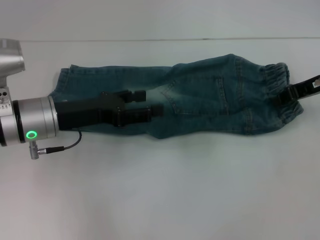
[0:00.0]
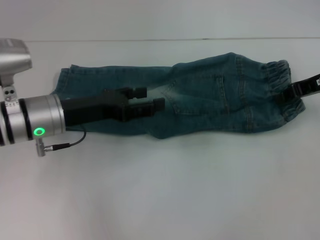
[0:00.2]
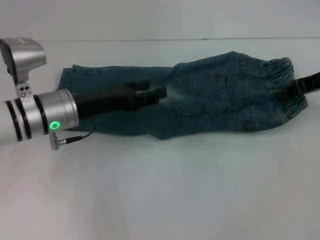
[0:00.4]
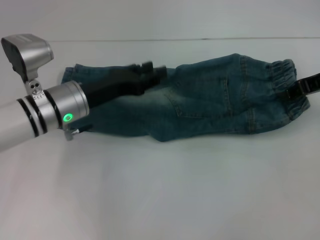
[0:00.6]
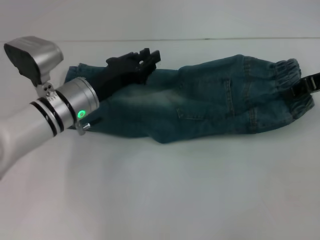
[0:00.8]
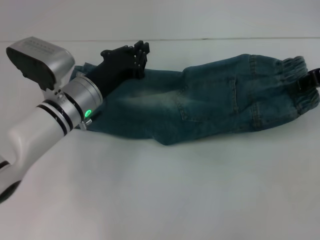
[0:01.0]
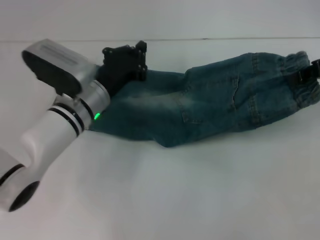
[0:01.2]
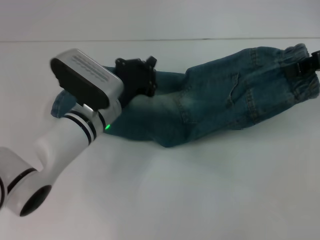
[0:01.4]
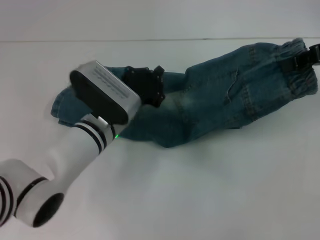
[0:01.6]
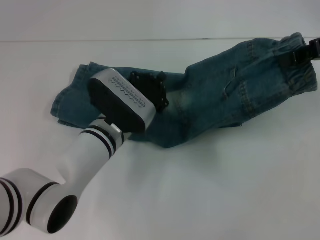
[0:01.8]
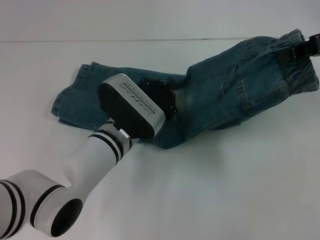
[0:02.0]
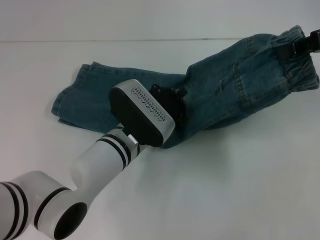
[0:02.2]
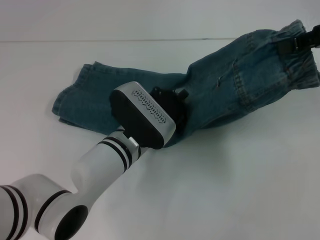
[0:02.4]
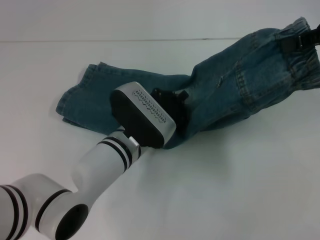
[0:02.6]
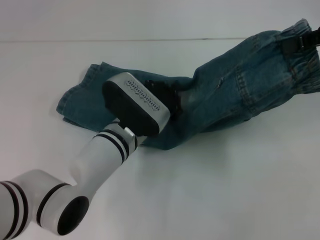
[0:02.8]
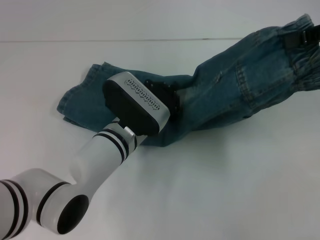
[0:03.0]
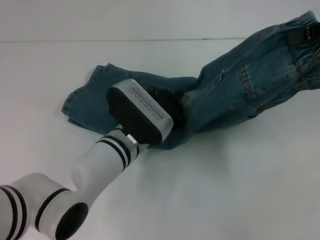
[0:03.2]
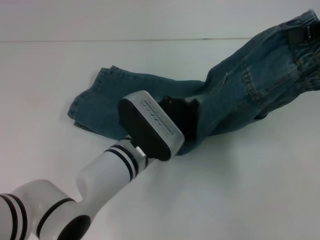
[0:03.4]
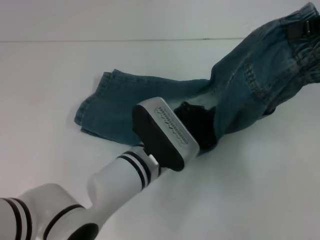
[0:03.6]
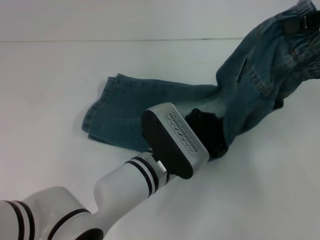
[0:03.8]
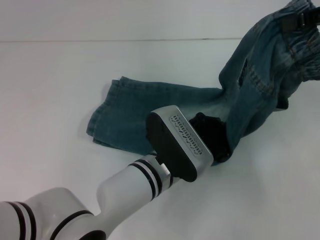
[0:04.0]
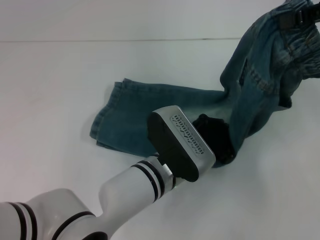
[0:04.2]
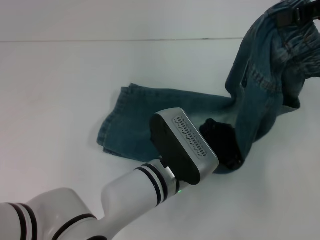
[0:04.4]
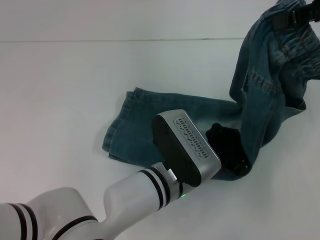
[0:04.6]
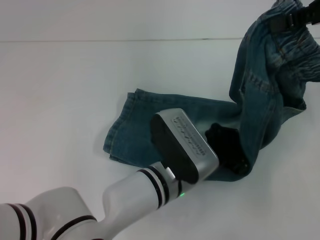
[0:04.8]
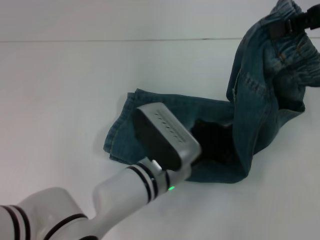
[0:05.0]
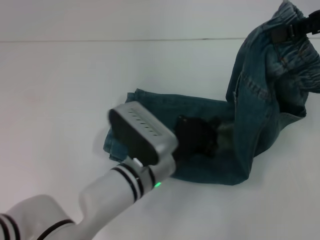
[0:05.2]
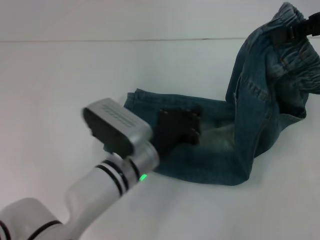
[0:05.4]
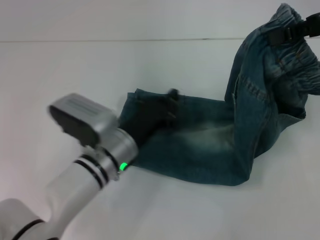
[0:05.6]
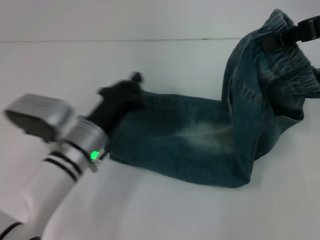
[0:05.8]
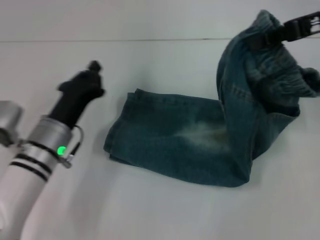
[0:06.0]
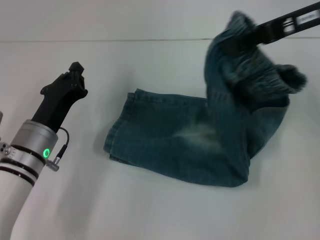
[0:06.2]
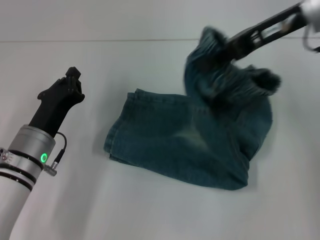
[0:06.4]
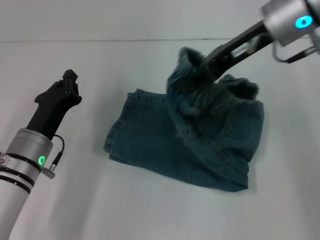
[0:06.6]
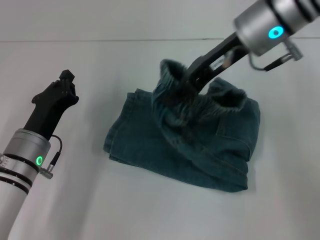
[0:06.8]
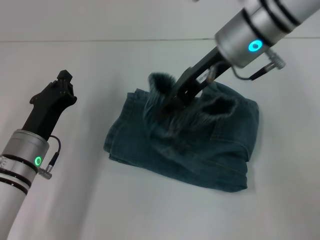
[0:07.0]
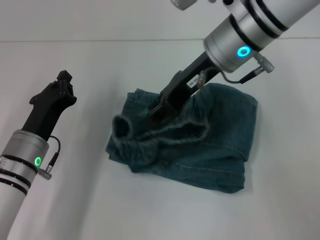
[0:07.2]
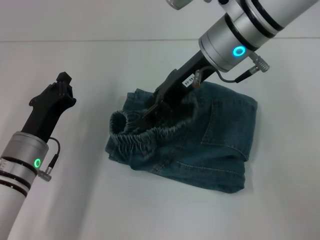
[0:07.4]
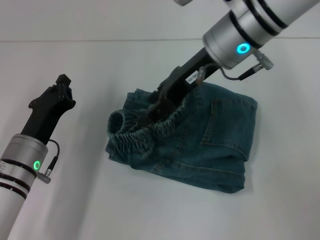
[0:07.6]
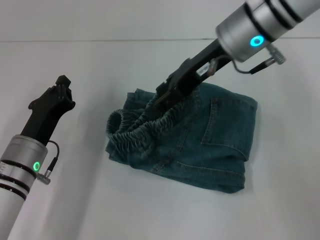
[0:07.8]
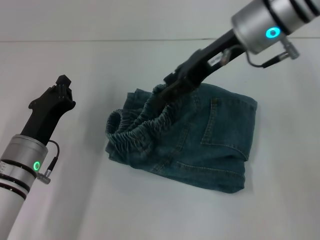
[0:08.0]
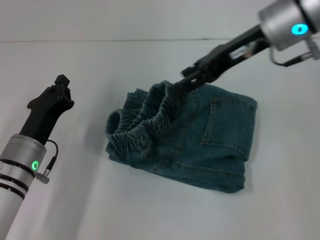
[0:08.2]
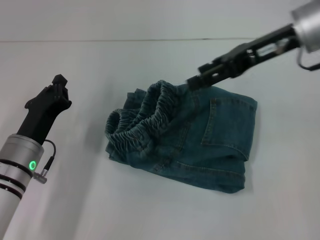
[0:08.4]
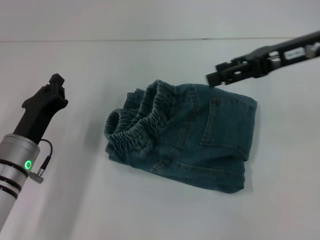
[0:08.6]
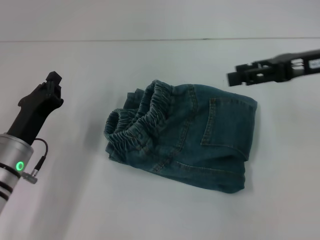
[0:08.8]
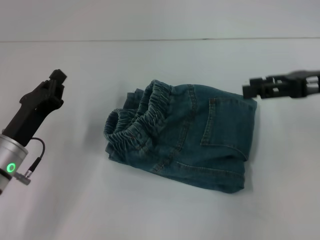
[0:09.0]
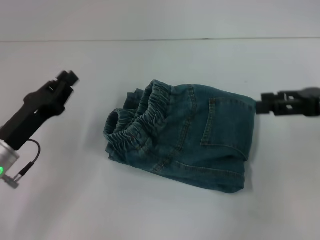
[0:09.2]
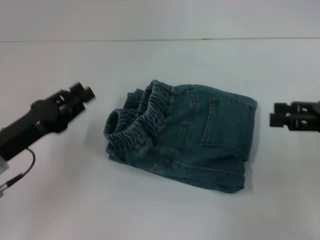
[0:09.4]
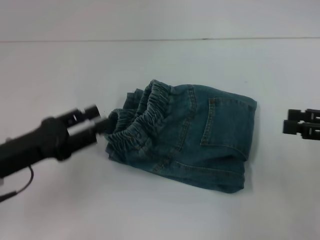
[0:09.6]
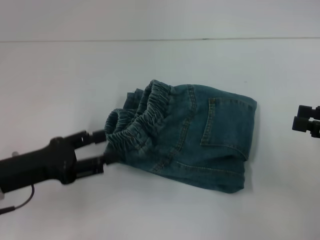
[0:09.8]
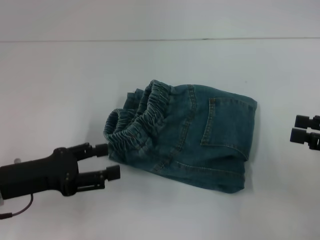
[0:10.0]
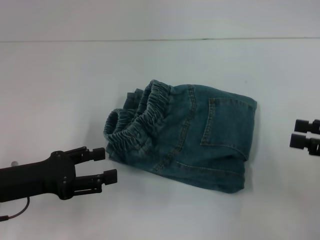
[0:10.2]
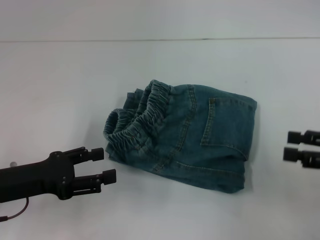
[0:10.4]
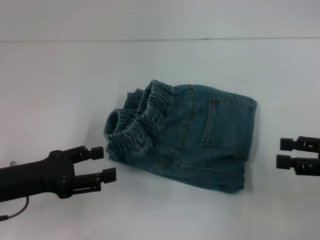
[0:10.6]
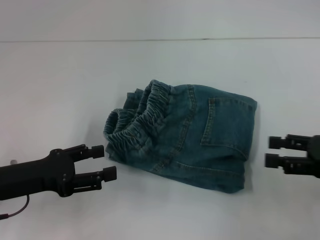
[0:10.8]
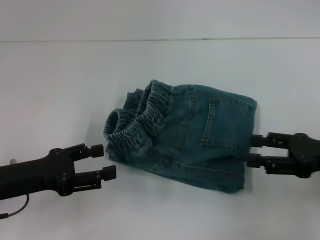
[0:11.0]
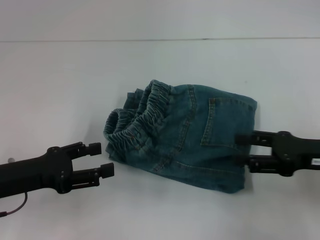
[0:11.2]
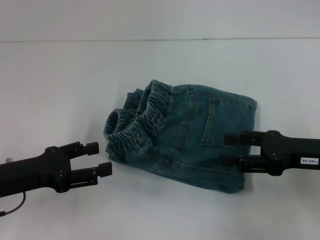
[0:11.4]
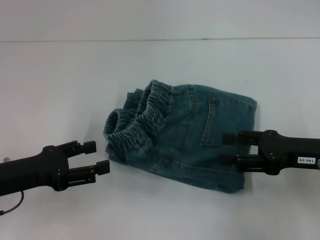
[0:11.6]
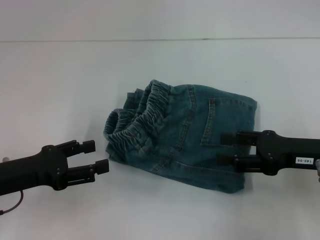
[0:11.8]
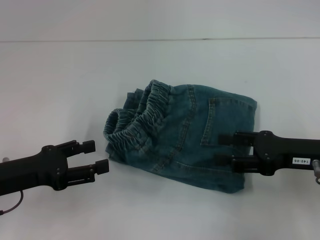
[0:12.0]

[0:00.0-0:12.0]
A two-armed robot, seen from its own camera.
Step, 0:00.0 to 0:04.8: Press the middle of the pants with your left hand.
Step, 0:05.0 to 0:08.4: Fold to the left with your right hand.
0:00.0 to 0:01.6: The right gripper travels upward by about 10 cm, while the left gripper heads to the right and downward, covering roughly 10 cm, and closes up.
0:01.6 to 0:03.0: The grippers make only small movements.
0:03.0 to 0:04.4: The left gripper travels backward and to the right by some 10 cm.
0:04.4 to 0:06.0: The left gripper shifts some 15 cm to the left.
0:06.0 to 0:07.6: The right gripper travels to the left by about 20 cm, and opens its fingers.
0:07.6 to 0:09.0: The right gripper travels to the right by some 20 cm.
0:09.0 to 0:10.4: The left gripper moves some 5 cm, and opens up. Meanwhile the right gripper moves backward, downward and to the right, approximately 10 cm.
0:10.4 to 0:12.0: The right gripper shifts roughly 10 cm to the left.

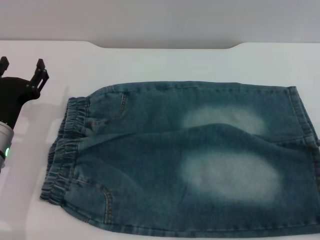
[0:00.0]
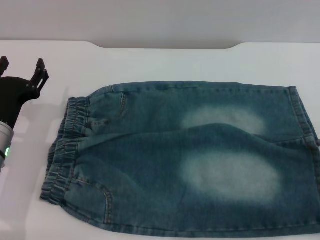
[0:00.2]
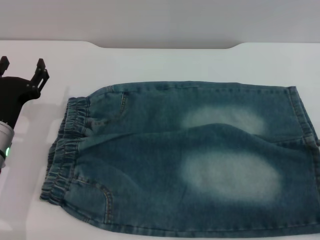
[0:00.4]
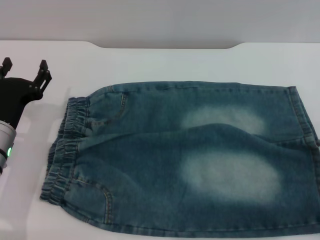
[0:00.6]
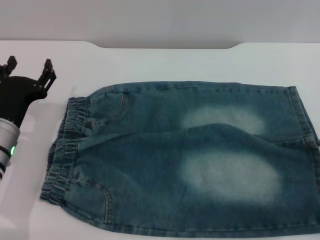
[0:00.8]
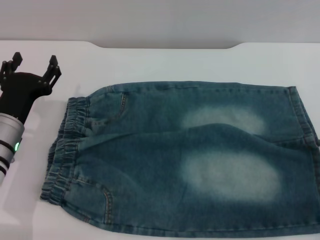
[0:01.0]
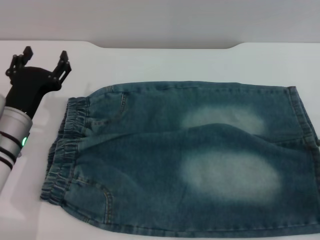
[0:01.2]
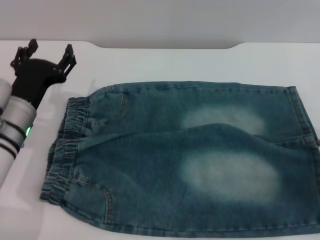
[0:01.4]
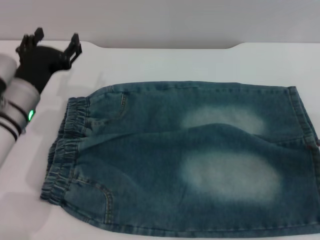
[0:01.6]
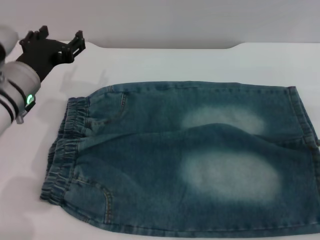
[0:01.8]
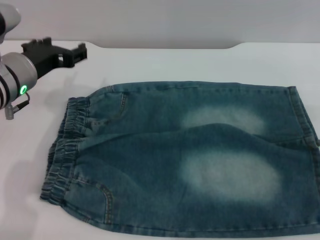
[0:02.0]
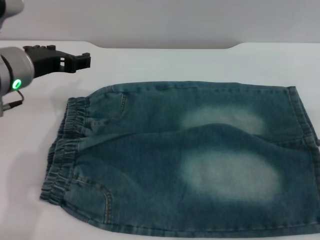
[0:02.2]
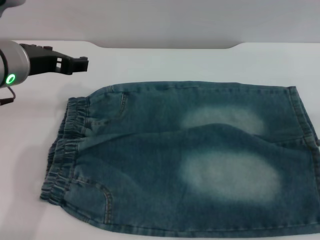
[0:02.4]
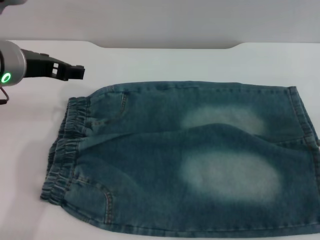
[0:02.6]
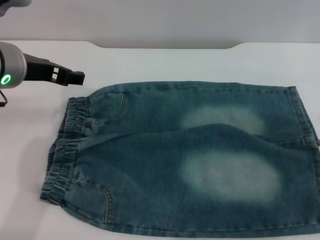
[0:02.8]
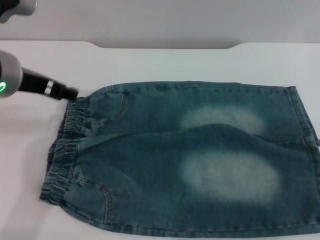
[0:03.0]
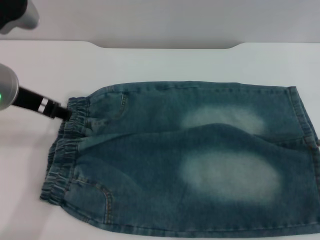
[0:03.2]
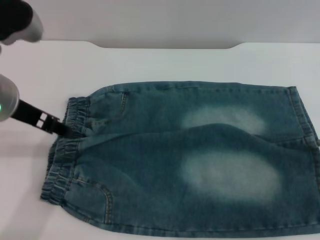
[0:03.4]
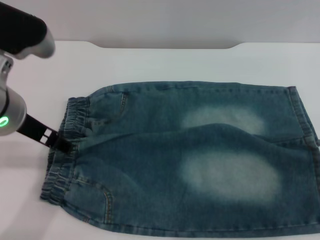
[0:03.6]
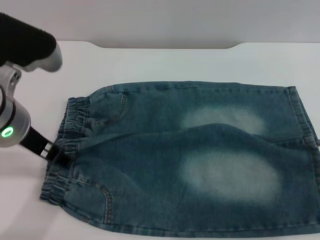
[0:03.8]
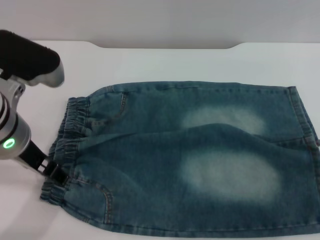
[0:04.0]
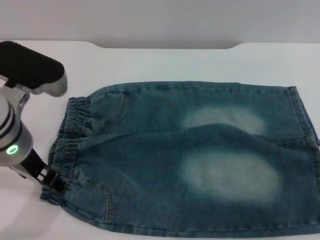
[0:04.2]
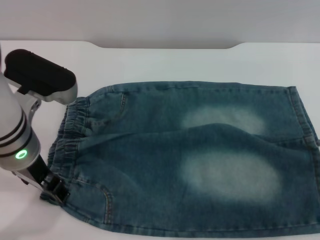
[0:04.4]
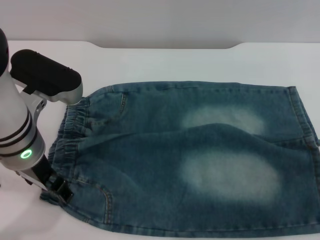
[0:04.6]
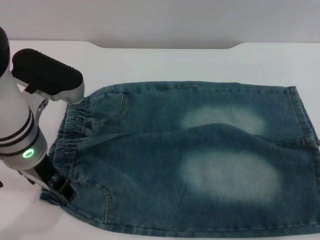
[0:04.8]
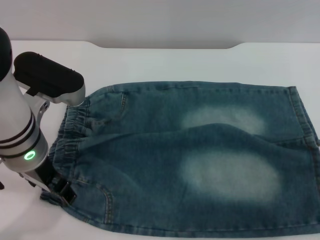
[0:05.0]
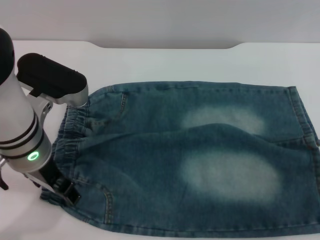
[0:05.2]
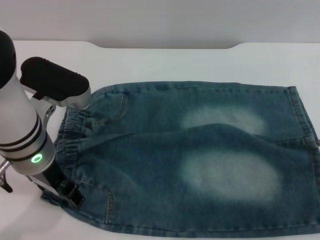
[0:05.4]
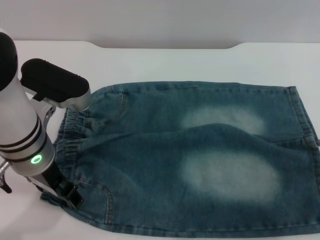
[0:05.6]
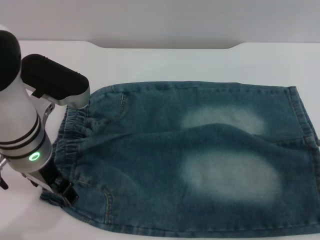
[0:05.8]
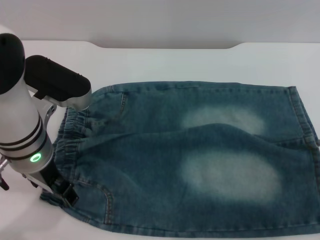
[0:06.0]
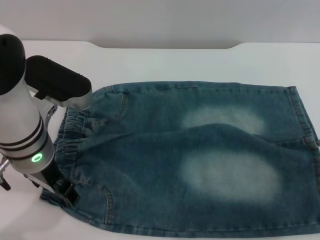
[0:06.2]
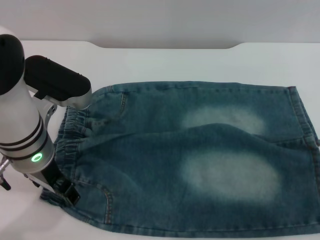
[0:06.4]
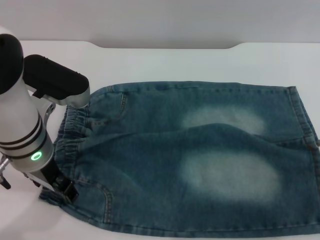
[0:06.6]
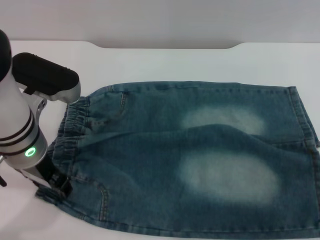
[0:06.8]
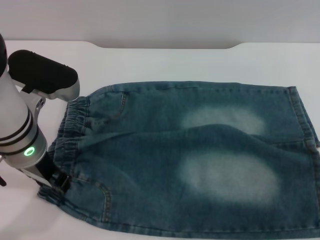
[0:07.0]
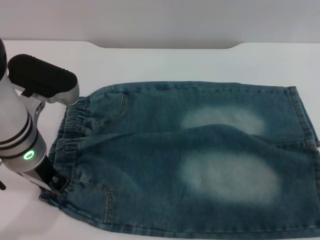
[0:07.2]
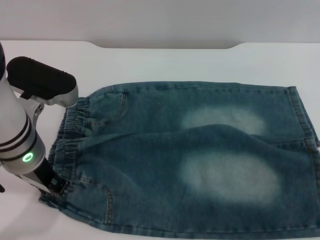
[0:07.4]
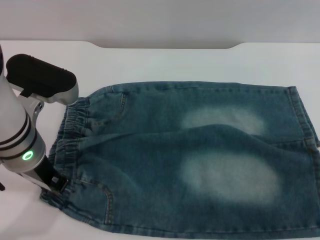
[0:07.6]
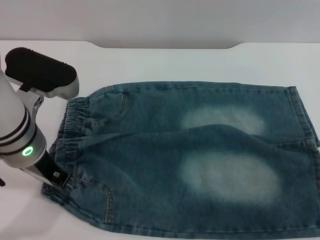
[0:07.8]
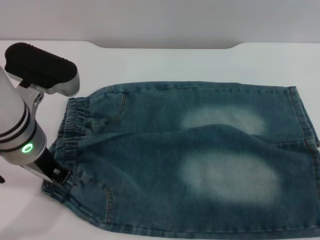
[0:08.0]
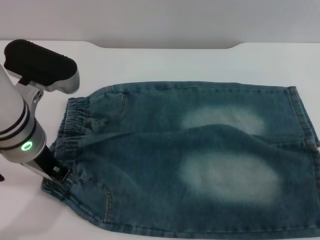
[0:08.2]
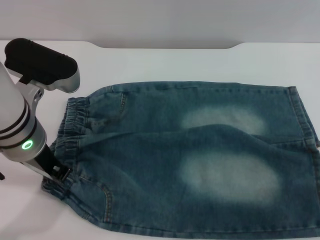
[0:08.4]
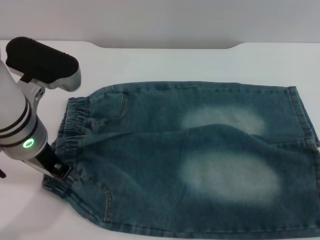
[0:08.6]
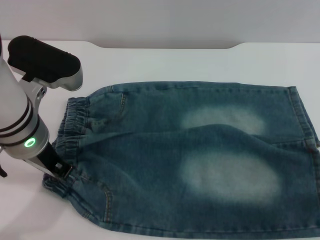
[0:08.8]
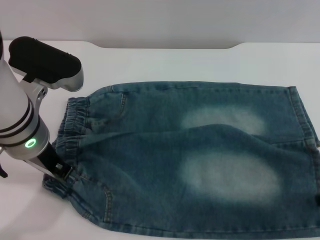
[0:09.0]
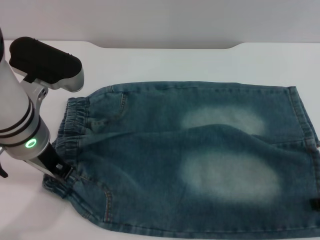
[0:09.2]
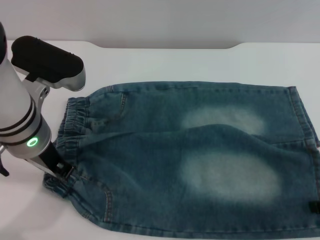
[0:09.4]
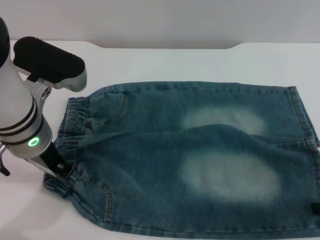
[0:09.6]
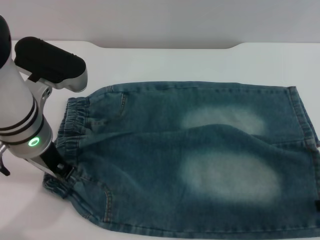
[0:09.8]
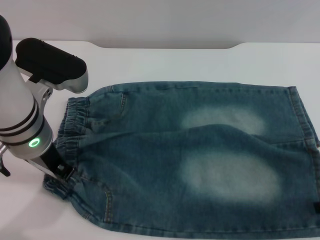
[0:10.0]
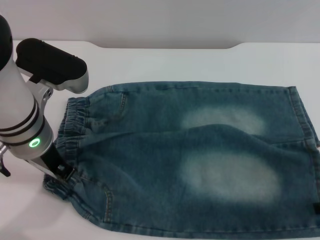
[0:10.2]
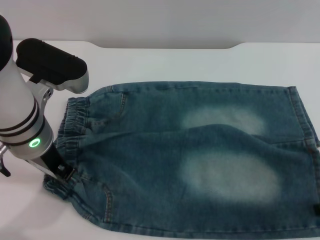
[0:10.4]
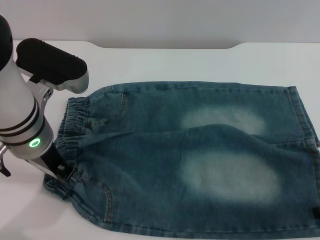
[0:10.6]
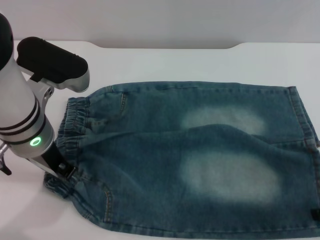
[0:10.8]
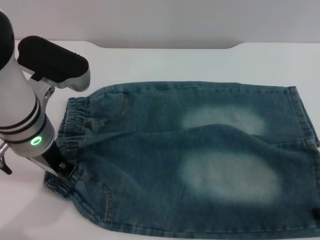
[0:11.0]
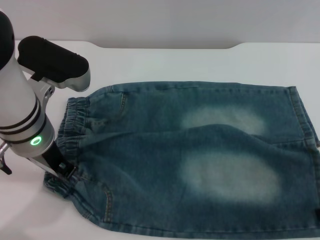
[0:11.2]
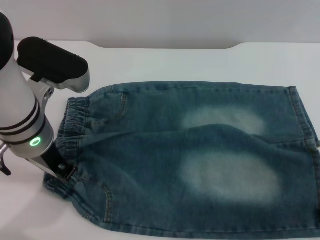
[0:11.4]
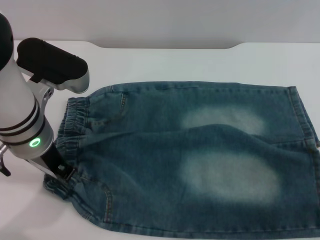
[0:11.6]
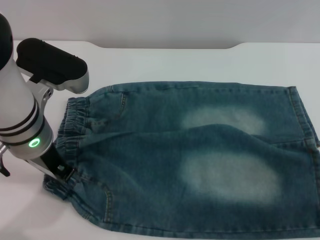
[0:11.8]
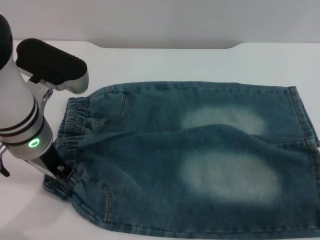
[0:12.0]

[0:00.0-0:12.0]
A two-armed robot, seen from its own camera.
0:00.0 to 0:01.6: The left gripper ends up about 5 cm from where it was.
0:01.6 to 0:03.0: The left gripper goes roughly 15 cm upward.
0:03.0 to 0:04.4: The left gripper travels downward by about 5 cm.
0:04.4 to 0:06.0: The grippers make only small movements.
0:06.0 to 0:07.6: The left gripper closes its fingers.
0:07.6 to 0:09.0: The grippers stay close to where they were, moving slightly.
0:09.0 to 0:10.4: Neither gripper changes place.
